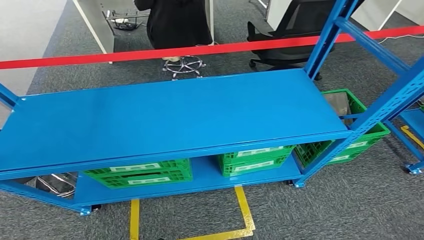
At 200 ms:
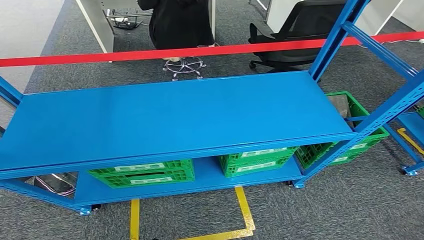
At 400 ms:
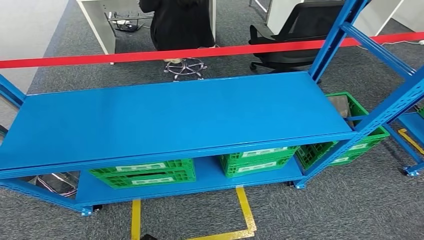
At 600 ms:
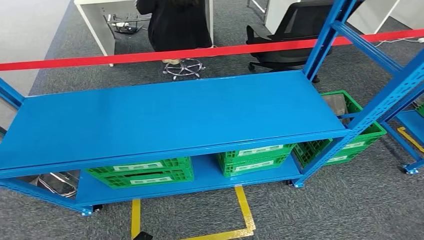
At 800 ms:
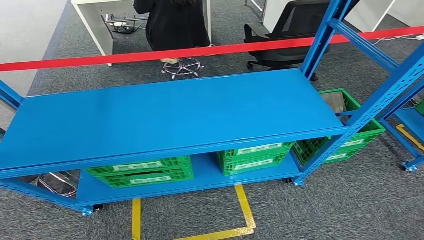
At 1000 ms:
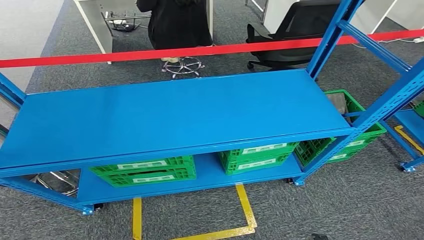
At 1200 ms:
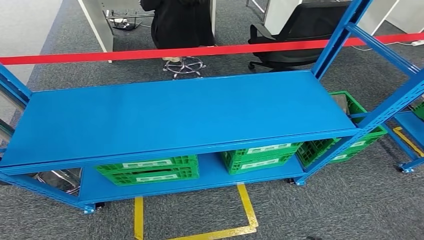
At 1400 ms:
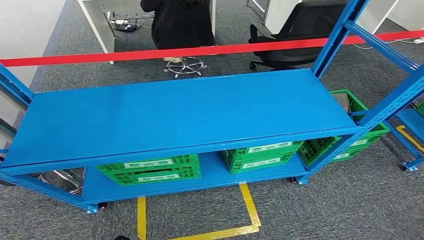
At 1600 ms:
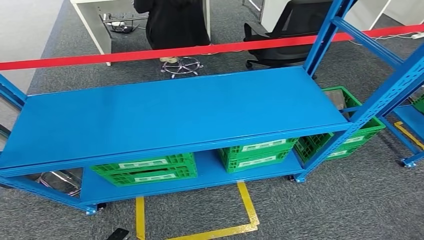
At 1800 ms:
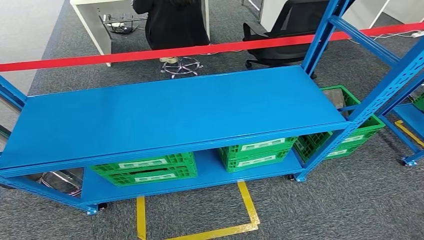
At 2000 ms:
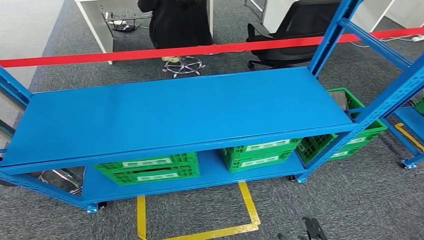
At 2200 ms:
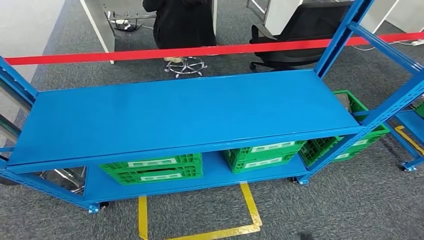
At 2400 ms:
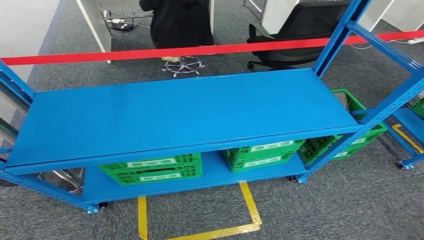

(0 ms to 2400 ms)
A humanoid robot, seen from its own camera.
Step, 0 ms - 2400 ms: Move to the initial position of the workbench.
0 ms - 1200 ms: The right hand goes about 5 cm to the right. Meanwhile the left hand goes roughly 5 cm to the left.
1200 ms - 2400 ms: The right hand swings forward and backward, approximately 10 cm each way, with 2 reversals; the left hand goes forward and backward, roughly 15 cm each way, reversing 2 times.
